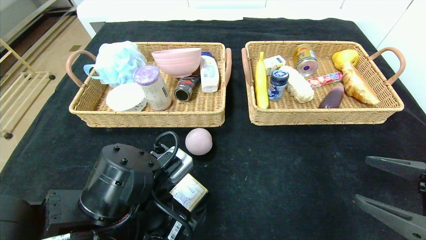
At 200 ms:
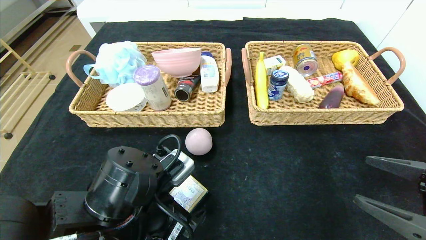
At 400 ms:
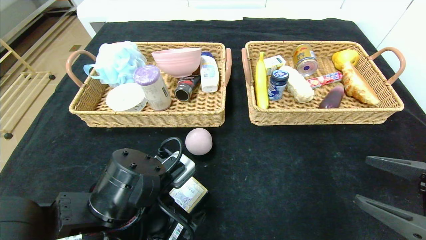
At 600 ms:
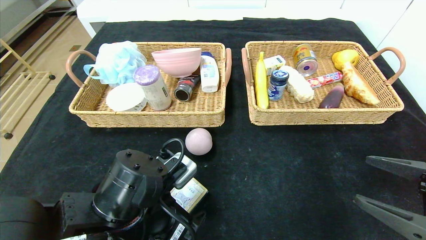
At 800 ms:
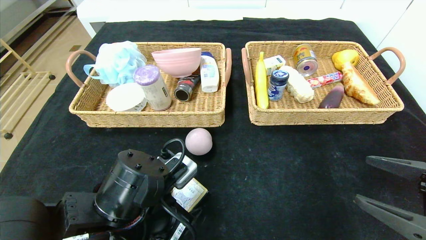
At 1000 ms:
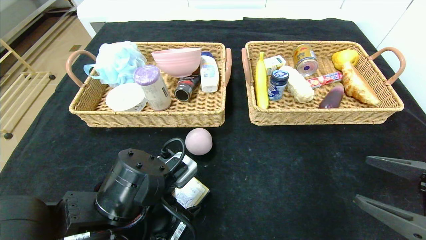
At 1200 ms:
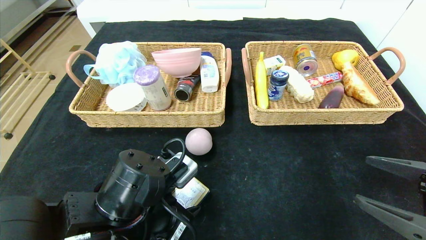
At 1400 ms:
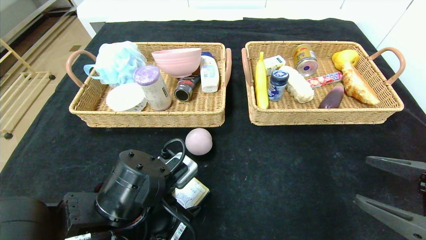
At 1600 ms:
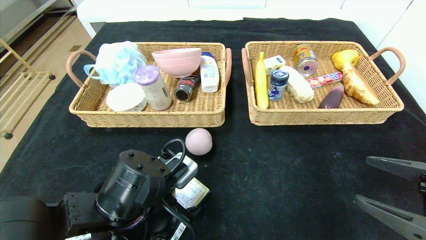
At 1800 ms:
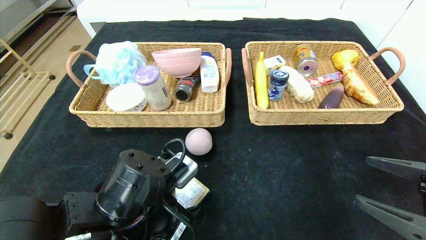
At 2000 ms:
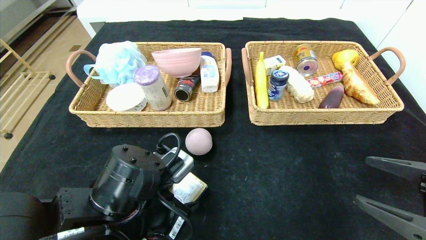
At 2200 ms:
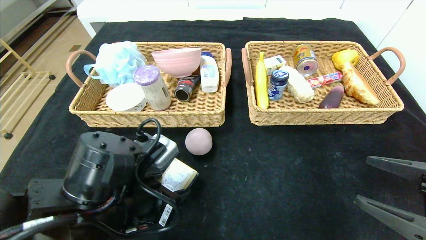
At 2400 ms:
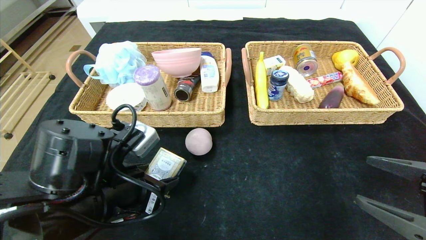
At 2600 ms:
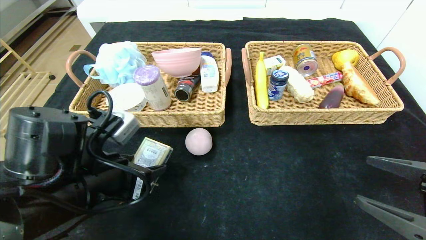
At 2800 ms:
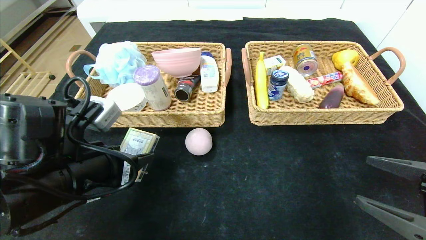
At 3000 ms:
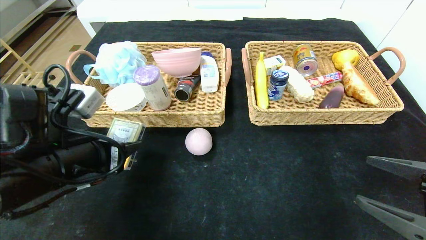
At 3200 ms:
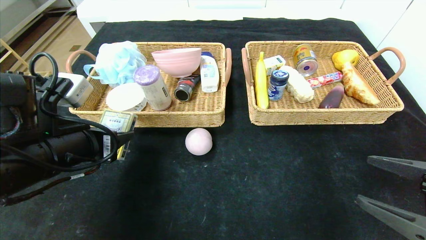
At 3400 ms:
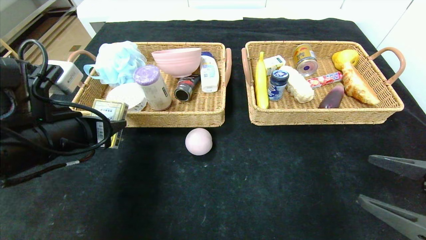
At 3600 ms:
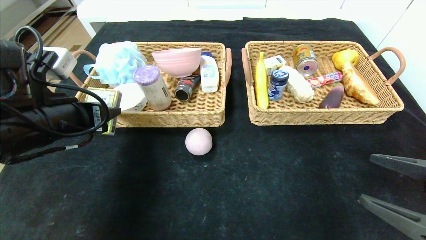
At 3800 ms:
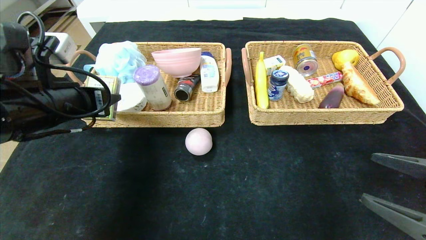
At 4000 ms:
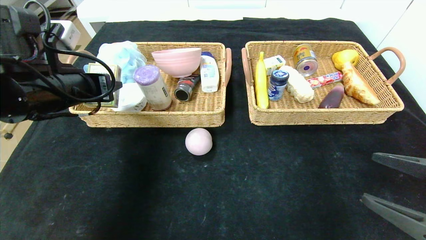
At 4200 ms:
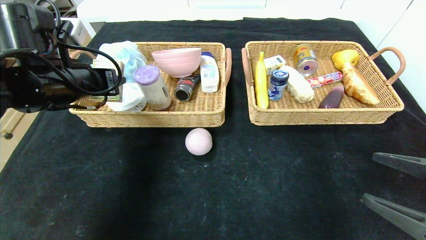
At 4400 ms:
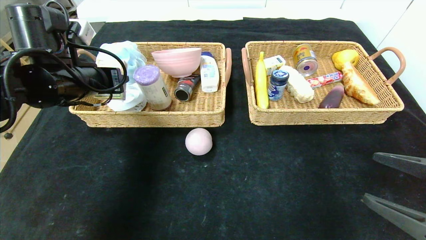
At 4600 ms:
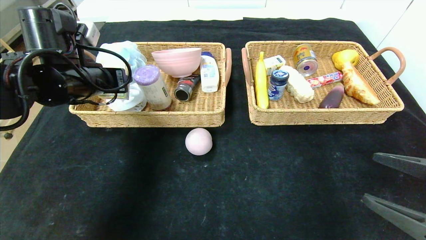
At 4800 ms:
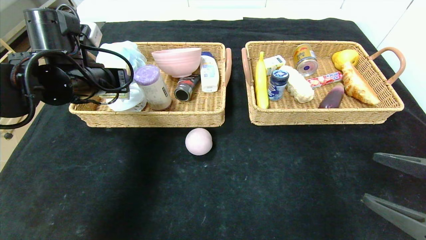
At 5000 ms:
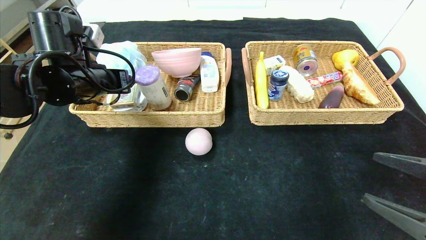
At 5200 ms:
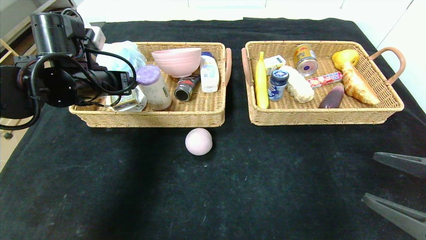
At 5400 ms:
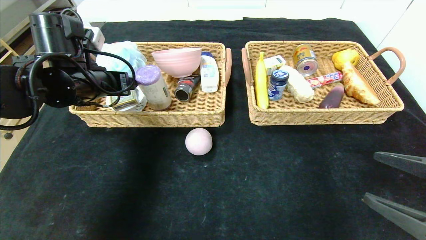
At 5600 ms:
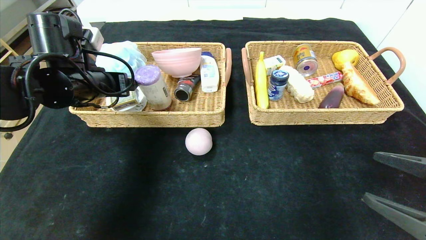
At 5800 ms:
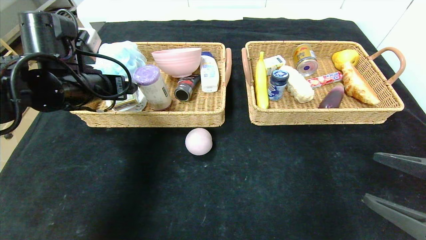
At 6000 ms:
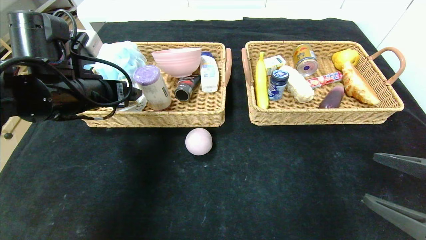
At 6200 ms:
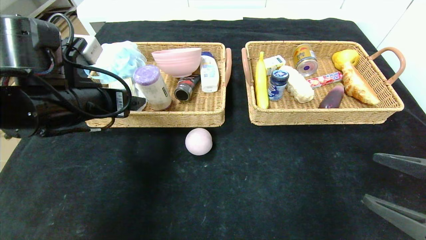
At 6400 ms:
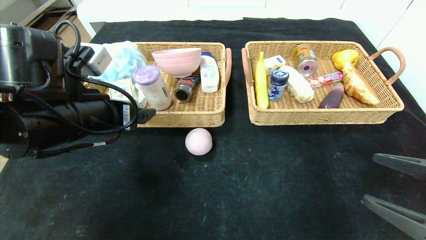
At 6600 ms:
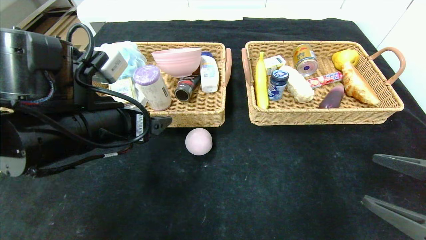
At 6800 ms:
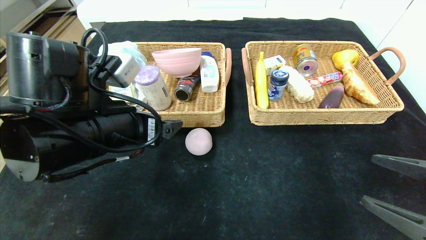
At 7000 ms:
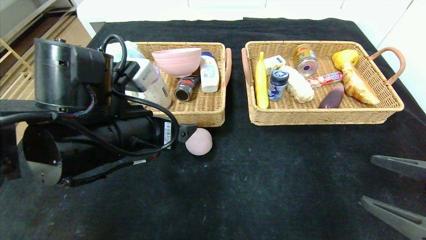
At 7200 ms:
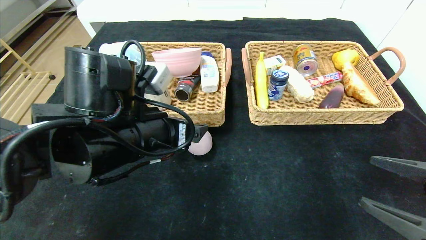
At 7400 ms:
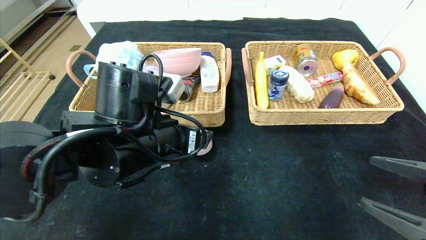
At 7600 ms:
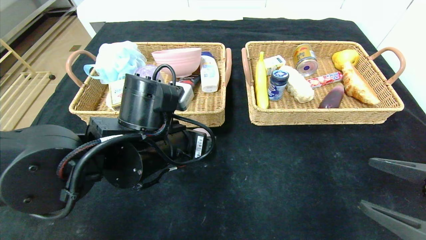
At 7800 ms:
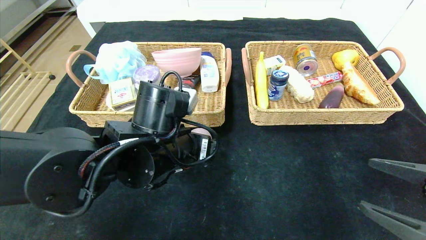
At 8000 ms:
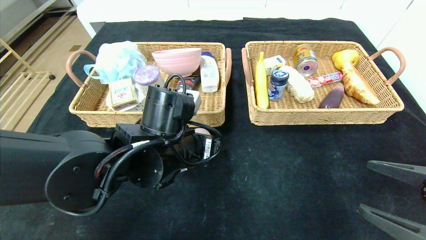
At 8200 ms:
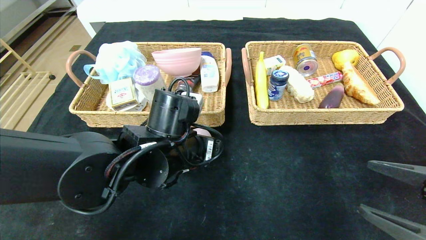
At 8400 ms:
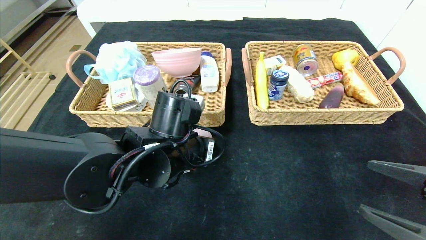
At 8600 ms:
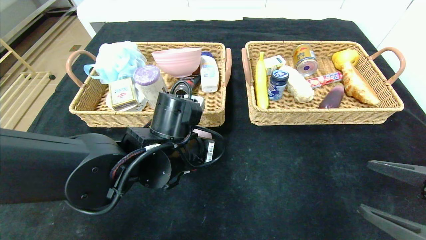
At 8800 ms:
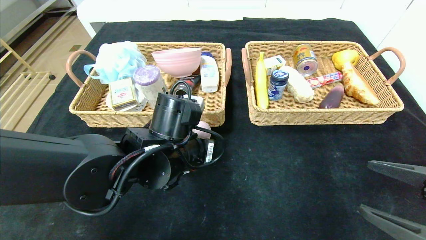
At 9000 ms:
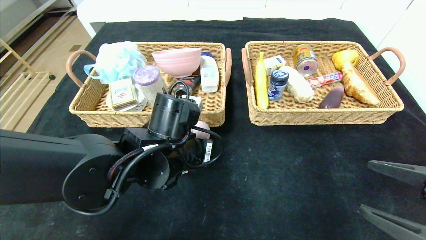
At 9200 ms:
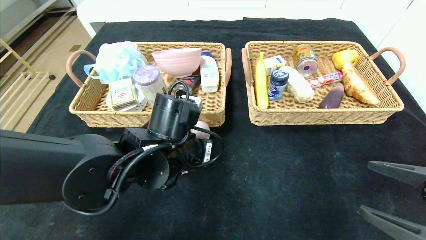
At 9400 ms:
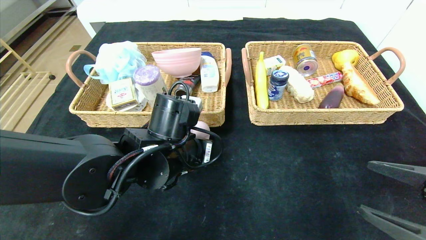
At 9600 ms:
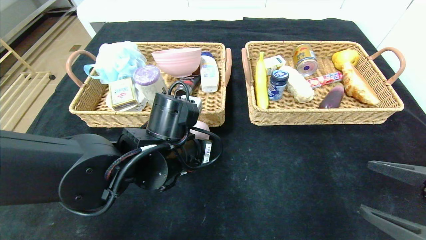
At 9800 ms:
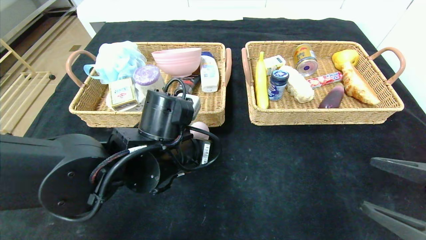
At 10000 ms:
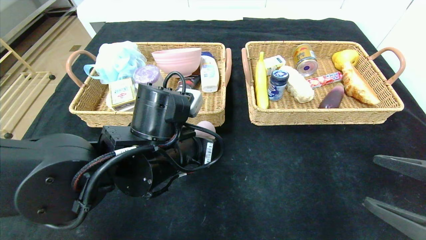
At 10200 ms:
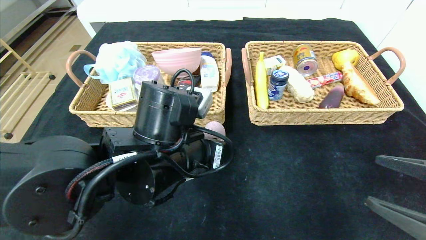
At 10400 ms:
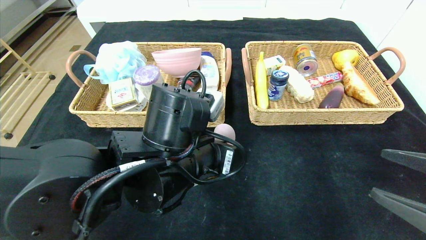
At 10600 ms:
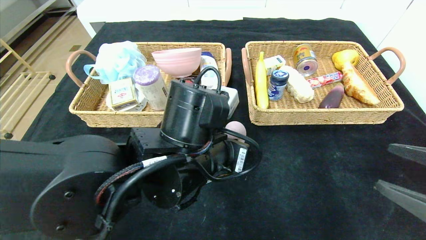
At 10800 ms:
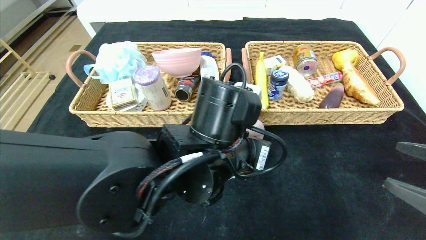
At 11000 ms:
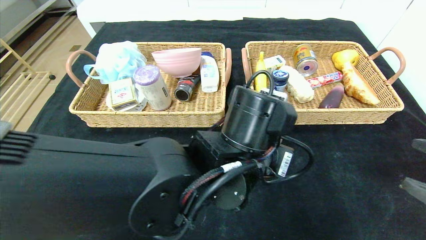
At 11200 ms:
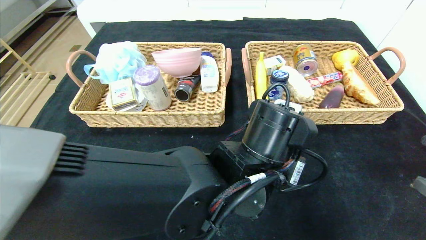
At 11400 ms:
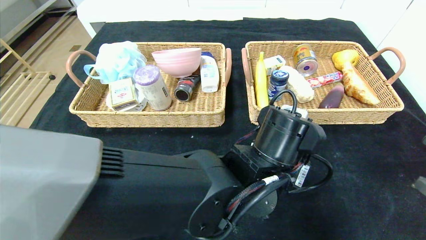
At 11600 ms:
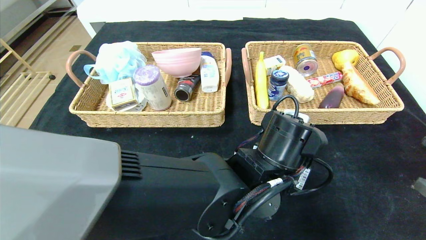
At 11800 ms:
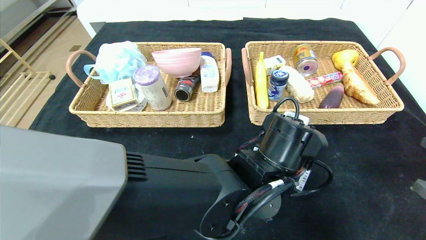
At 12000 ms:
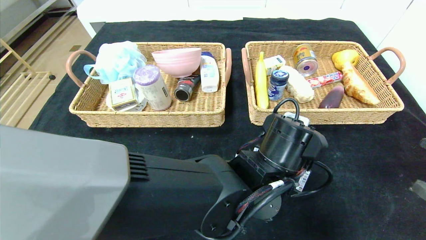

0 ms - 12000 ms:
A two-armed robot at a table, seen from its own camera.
Step, 0 ms - 5200 ms: Grasp the playing cards and put it in the left basket.
0 ms - 1600 ms: The left gripper closes up.
1600 ms - 3000 ms: The left gripper is displaced to the left and upward by roughly 10 cm.
3000 ms - 4400 ms: The left gripper goes roughly 15 cm forward and upward.
4400 ms - 6000 ms: The left gripper opens up.
6000 ms - 7600 ms: The left gripper shifts approximately 15 cm to the right and downward.
7600 ms - 9000 ms: The left gripper closes up.
9000 ms - 10400 ms: The left gripper moves roughly 5 cm.
10400 ms - 12000 ms: The left gripper moves to the right, roughly 15 cm, and opens.

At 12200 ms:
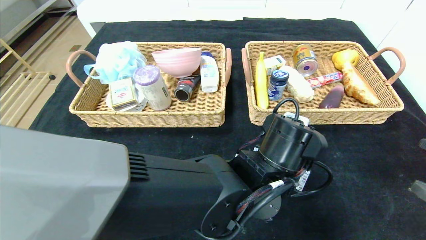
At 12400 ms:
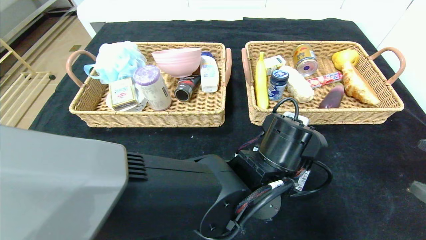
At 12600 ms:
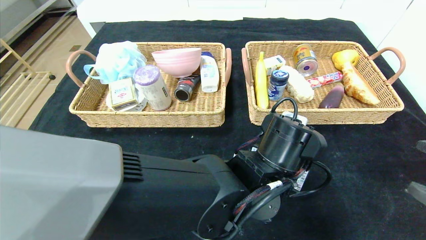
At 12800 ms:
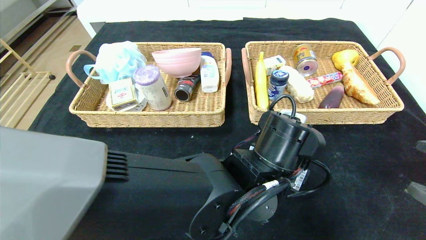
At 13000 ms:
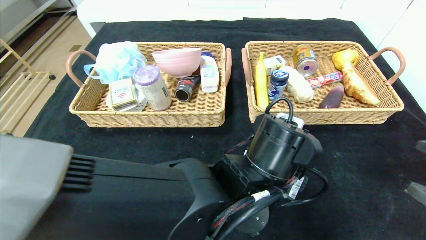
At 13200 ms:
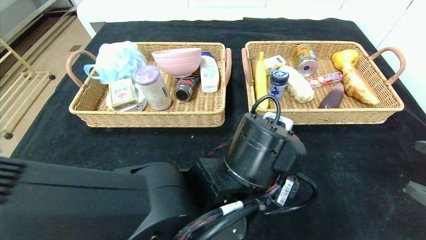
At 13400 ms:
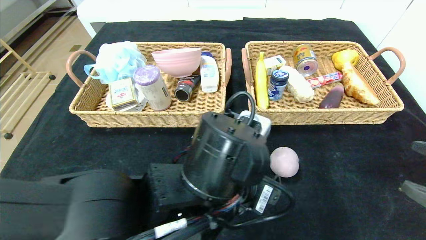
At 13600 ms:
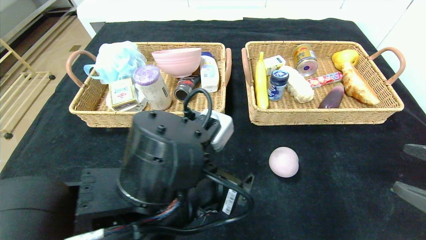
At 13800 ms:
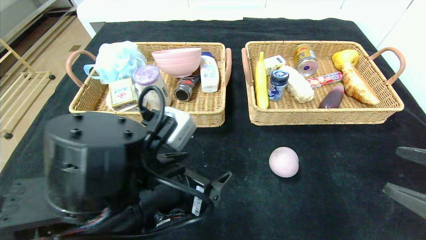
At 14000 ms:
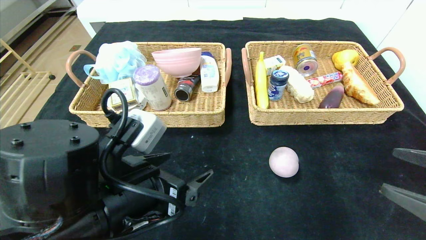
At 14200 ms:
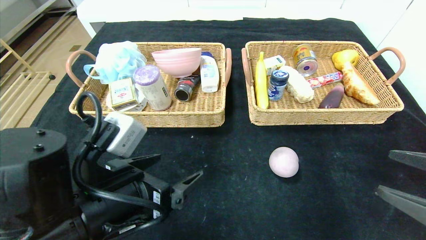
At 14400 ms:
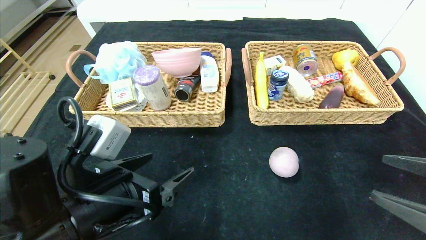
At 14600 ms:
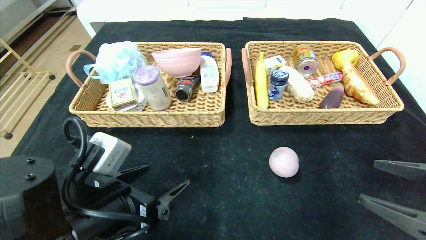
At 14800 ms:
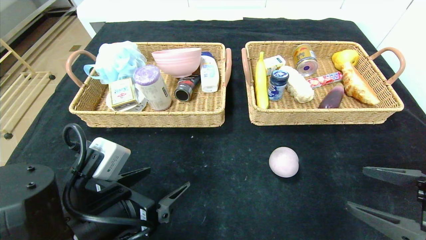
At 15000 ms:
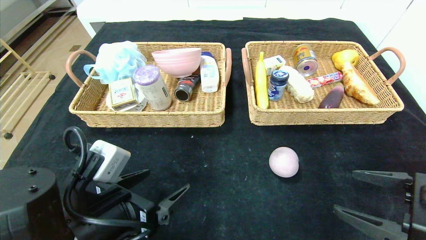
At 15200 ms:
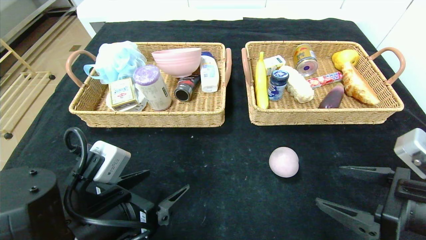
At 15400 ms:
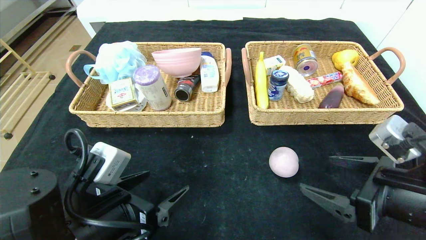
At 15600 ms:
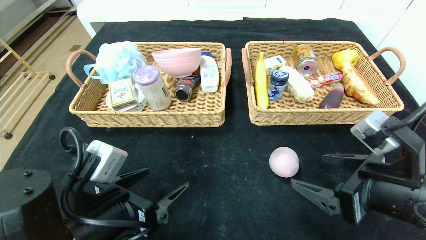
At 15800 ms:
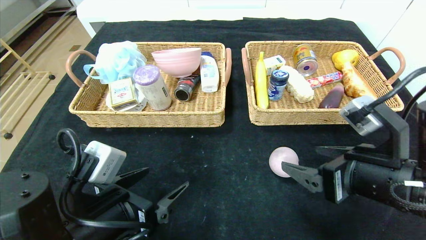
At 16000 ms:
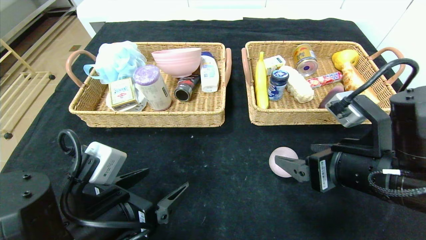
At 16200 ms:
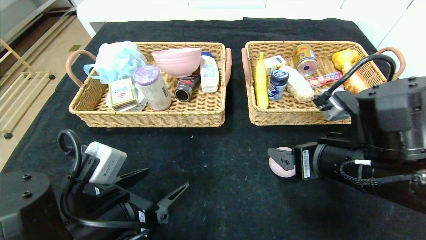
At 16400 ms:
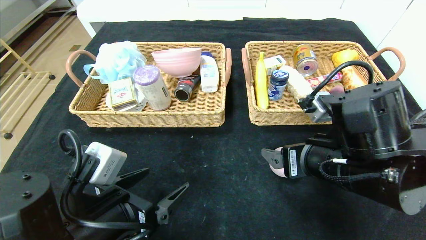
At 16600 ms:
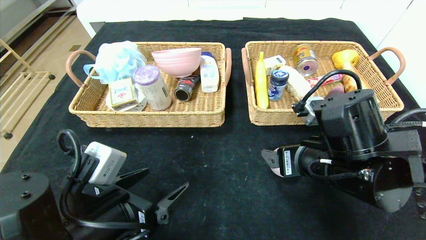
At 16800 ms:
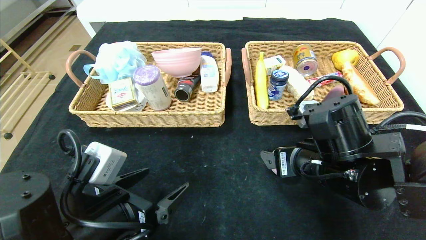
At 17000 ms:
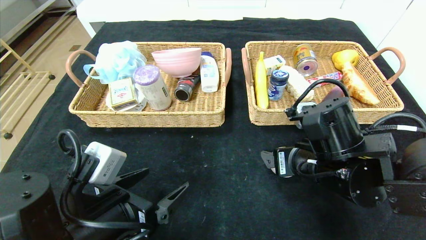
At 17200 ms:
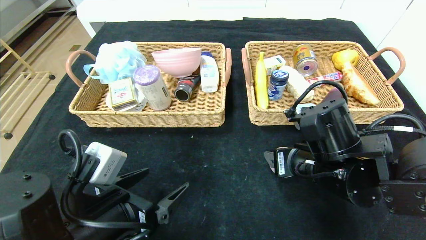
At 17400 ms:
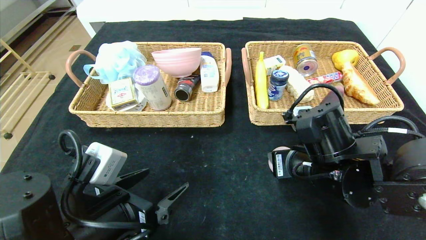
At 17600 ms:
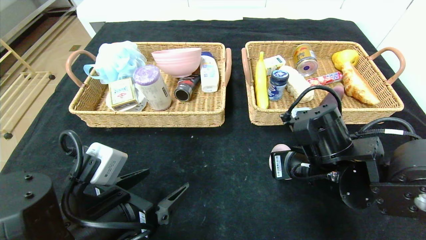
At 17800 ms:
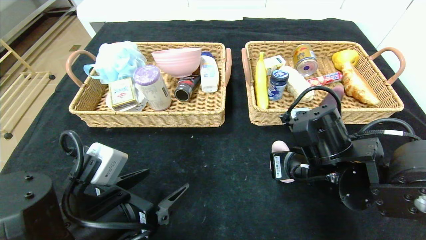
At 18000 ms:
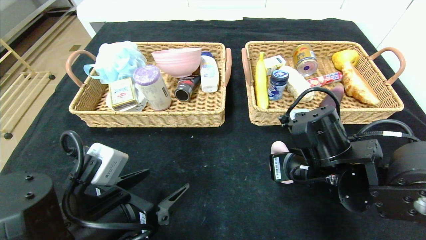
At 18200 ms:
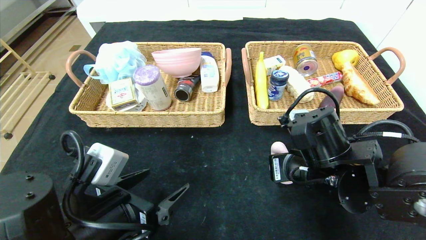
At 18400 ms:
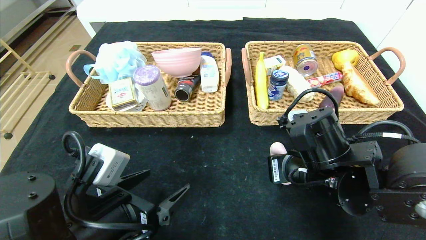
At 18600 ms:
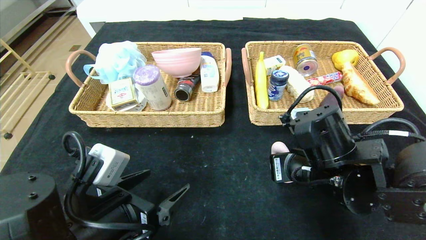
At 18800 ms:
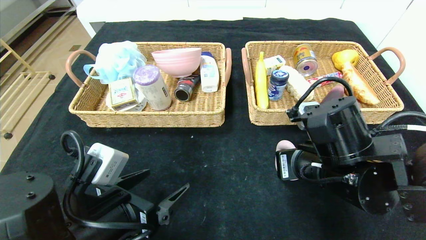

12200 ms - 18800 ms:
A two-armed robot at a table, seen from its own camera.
12200 ms - 13800 ms: The left gripper heads to the left and backward, covering roughly 20 cm, and opens its fingers.
13800 ms - 15400 ms: Both grippers move to the left, some 10 cm.
15400 ms - 17200 ms: The right gripper moves to the left and forward, approximately 10 cm.
17200 ms - 18800 ms: The right gripper closes up.
